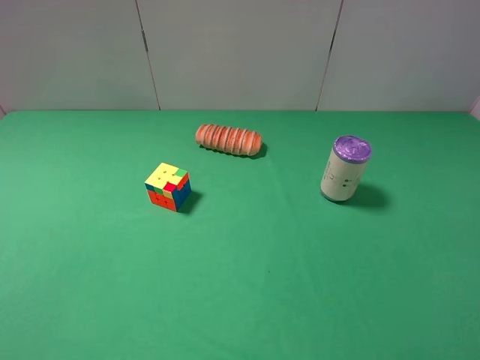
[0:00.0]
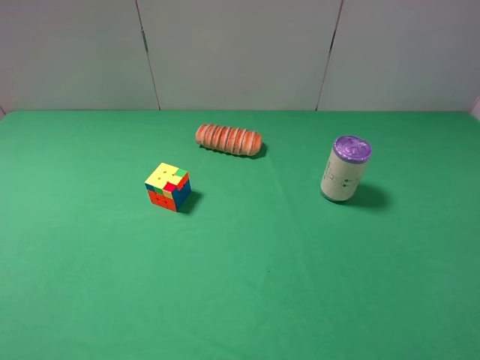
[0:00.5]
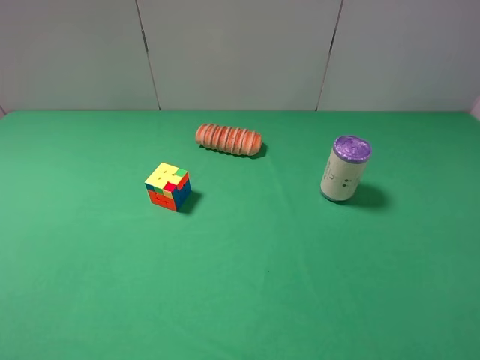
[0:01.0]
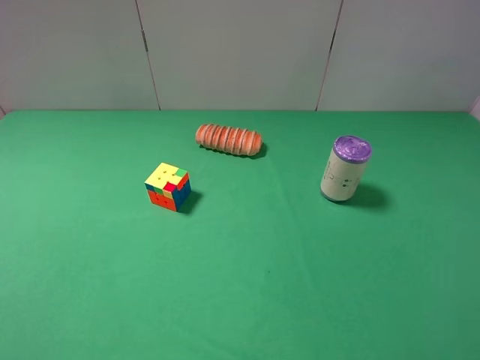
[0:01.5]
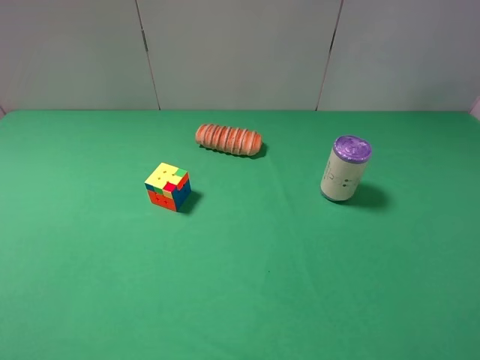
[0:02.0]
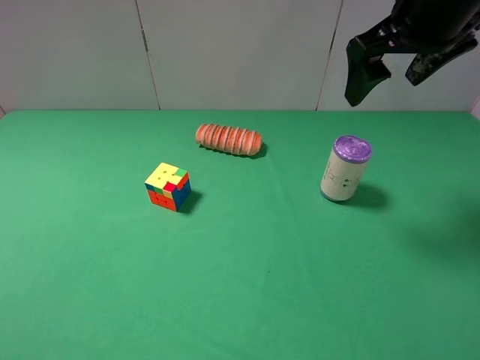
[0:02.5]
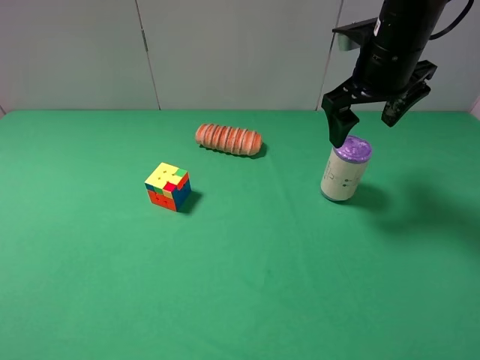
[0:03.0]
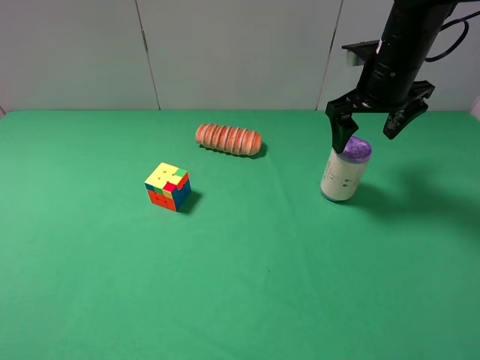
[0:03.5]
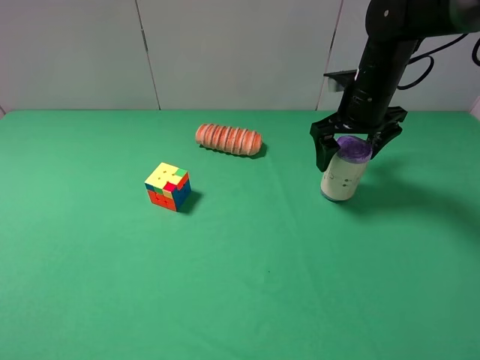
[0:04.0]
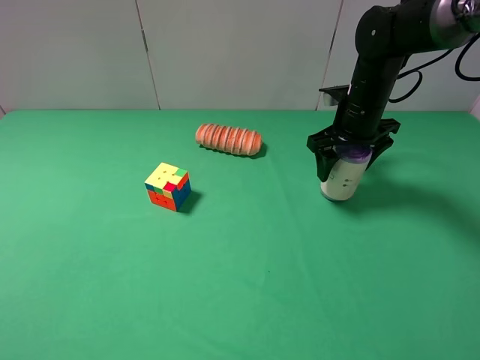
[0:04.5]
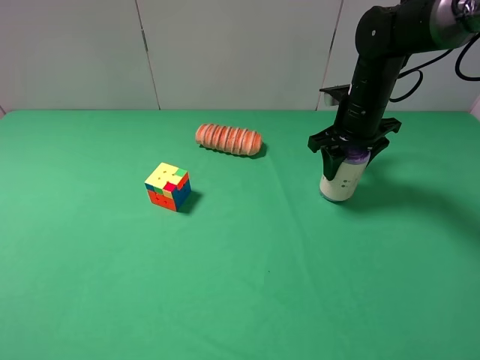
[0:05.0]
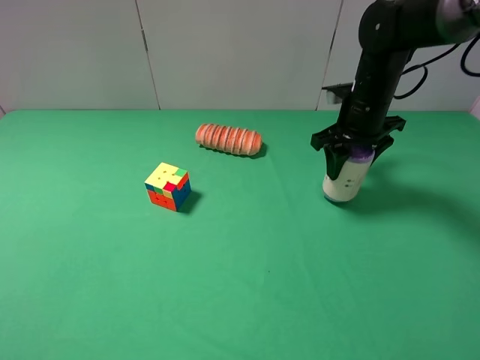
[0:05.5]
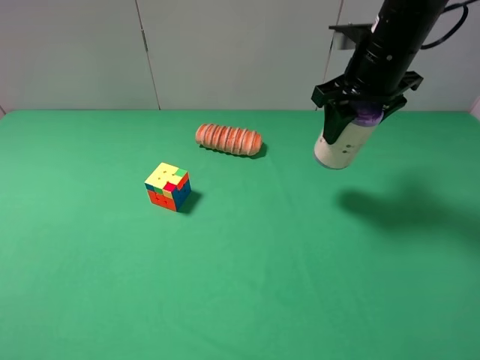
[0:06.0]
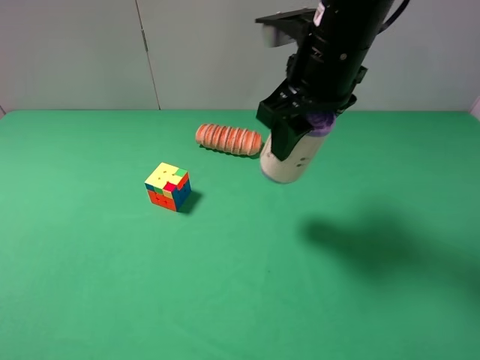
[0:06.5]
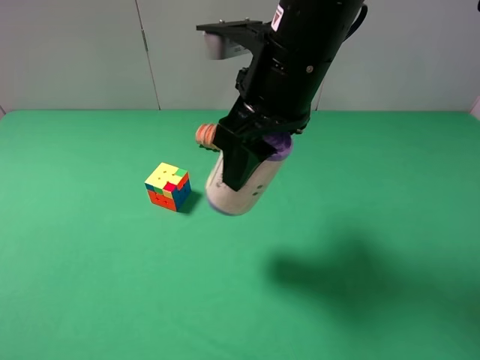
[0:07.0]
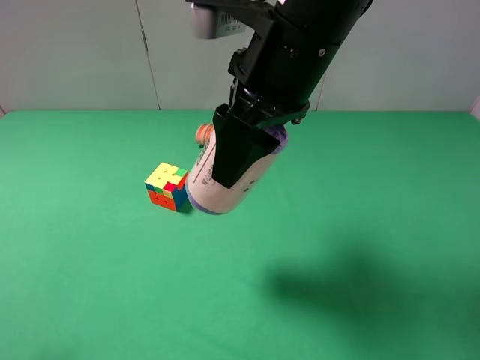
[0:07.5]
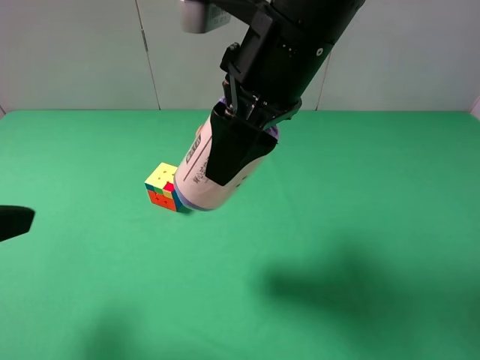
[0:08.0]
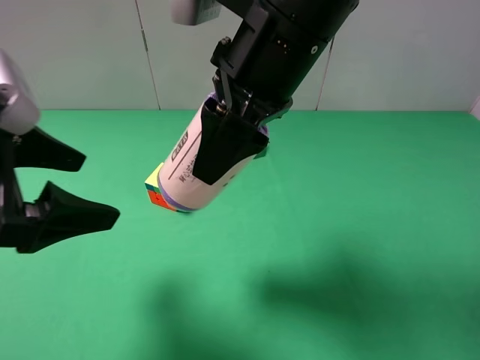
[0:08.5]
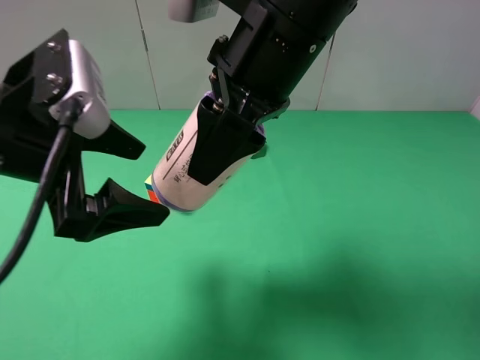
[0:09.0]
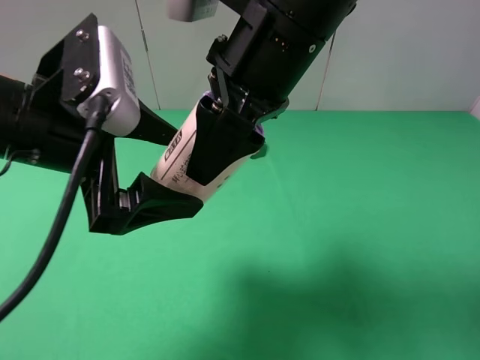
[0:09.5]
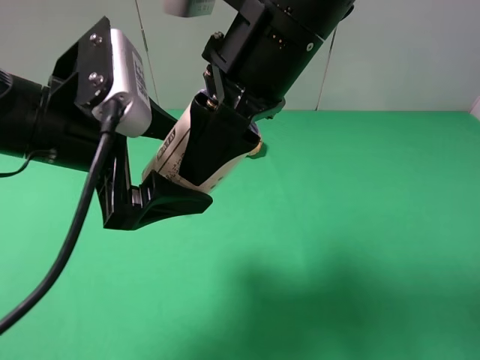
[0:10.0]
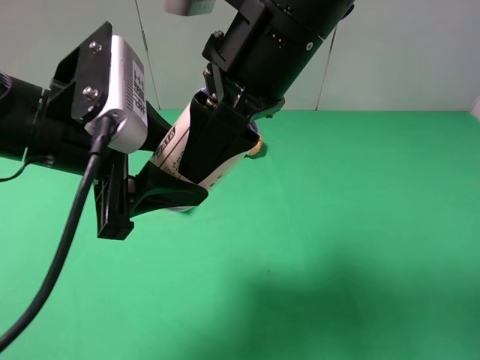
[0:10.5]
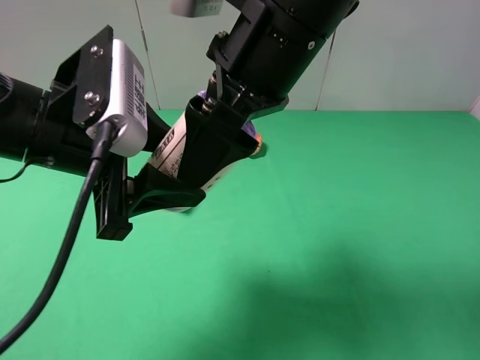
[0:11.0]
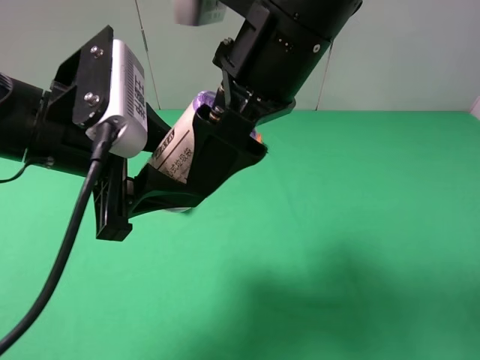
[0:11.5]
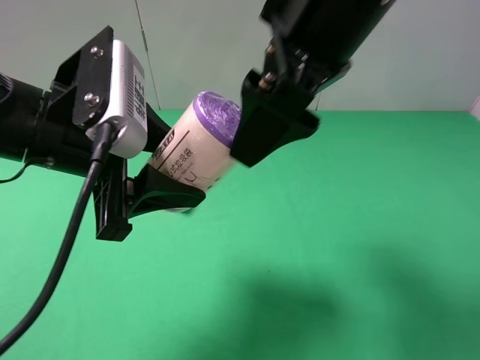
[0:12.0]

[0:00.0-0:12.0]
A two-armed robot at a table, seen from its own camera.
Task of the whole recording: use the right gripper to pick up the item and transfer it from the right gripper to the left gripper.
Step, 0:00.0 to 0:04.5: Use the right gripper to grab the purple garbage bag on the right side of the table.
Step, 0:05.0 to 0:11.0: Pass the purple garbage bag to the left gripper.
0:02.0 to 0:04.0: The right gripper goes some 30 cm downward and forward.
0:04.0 to 0:06.0: The right gripper shifts some 10 cm upward, and closes.
0:06.0 to 0:08.0: The right gripper shifts approximately 15 cm to the left and backward, while the left gripper heads forward, covering approximately 10 cm.
0:08.0 to 0:10.0: The left gripper is displaced to the right and forward by approximately 15 cm.
0:10.0 to 0:12.0: The left gripper closes up. The right gripper shifts by approximately 5 cm, and opens up.

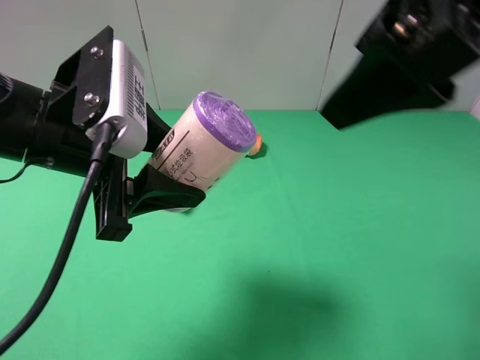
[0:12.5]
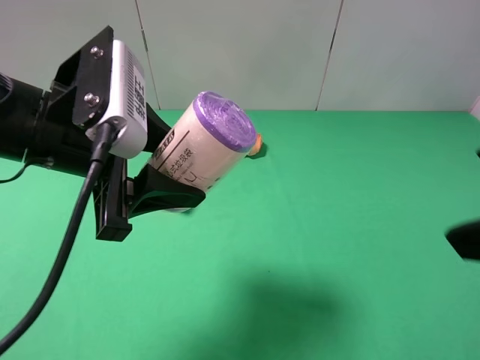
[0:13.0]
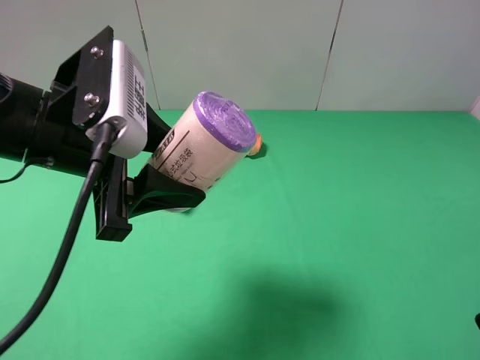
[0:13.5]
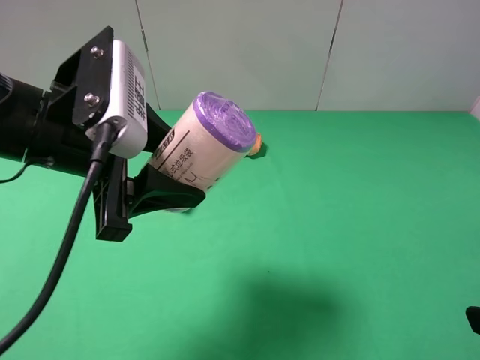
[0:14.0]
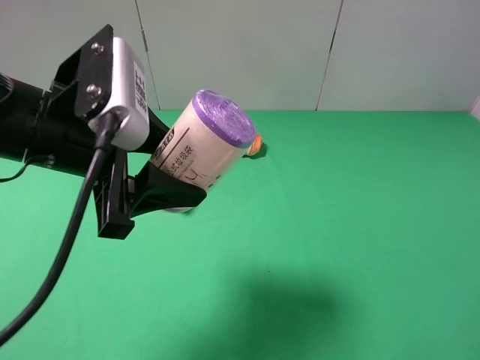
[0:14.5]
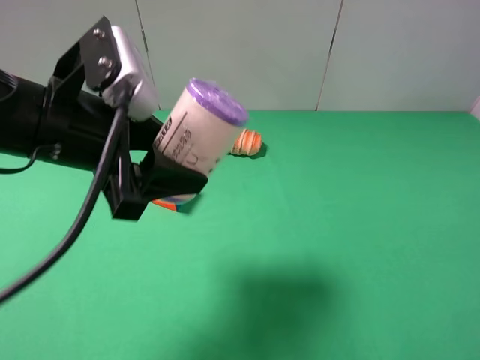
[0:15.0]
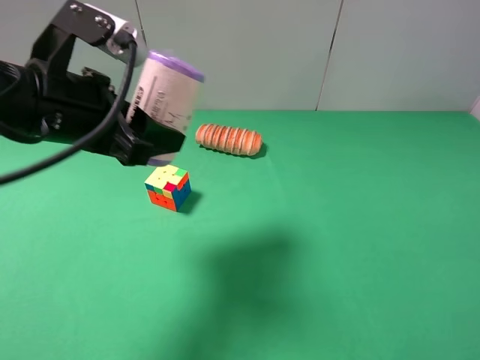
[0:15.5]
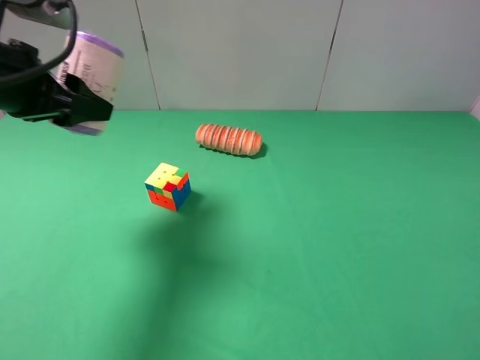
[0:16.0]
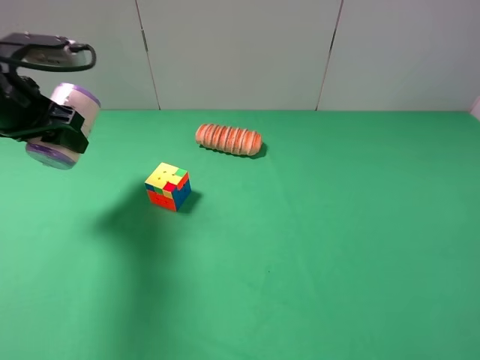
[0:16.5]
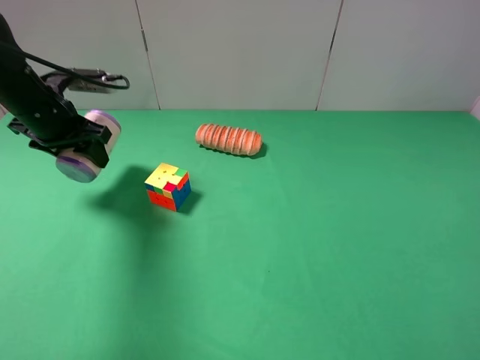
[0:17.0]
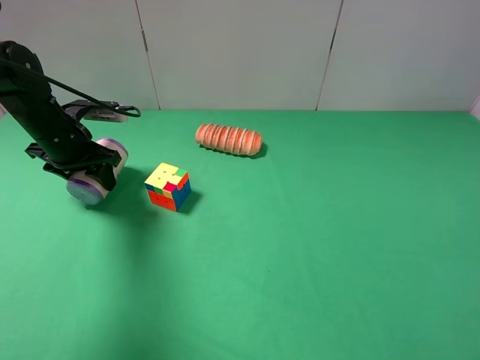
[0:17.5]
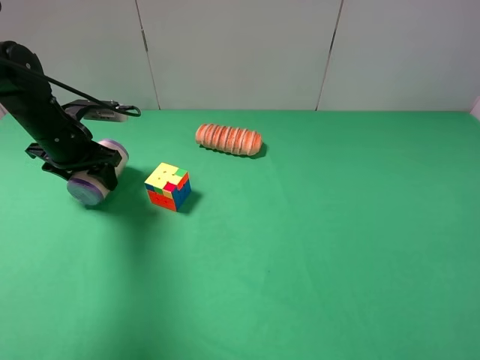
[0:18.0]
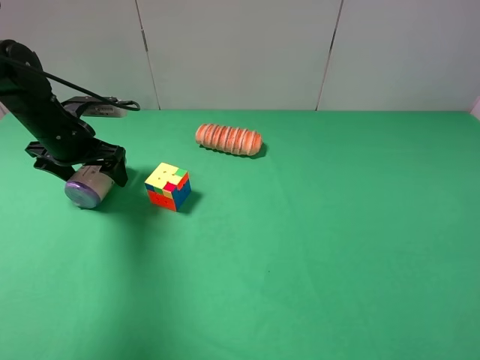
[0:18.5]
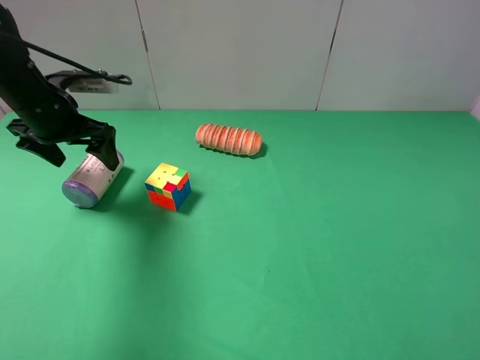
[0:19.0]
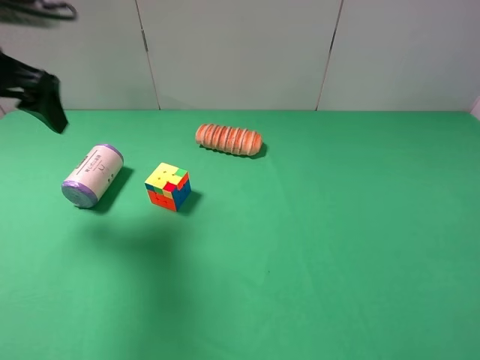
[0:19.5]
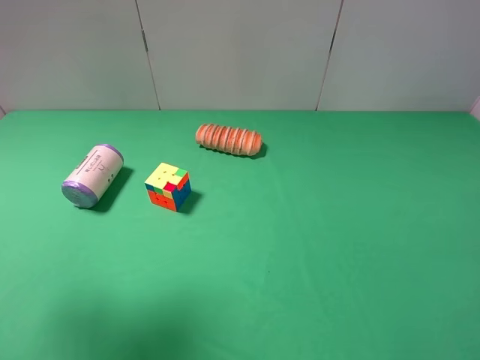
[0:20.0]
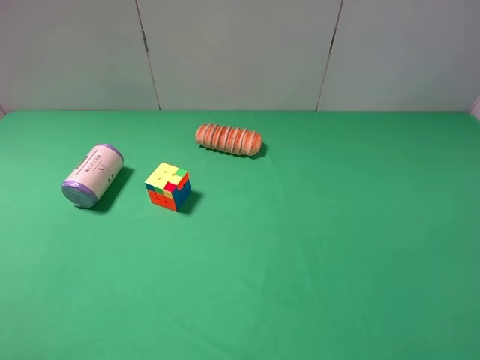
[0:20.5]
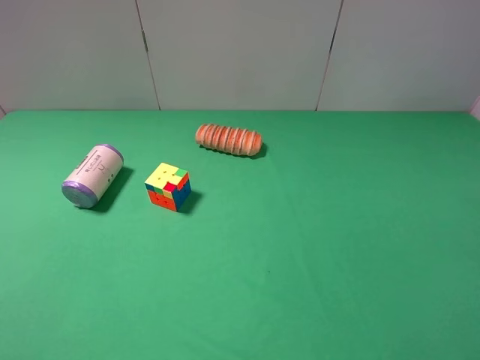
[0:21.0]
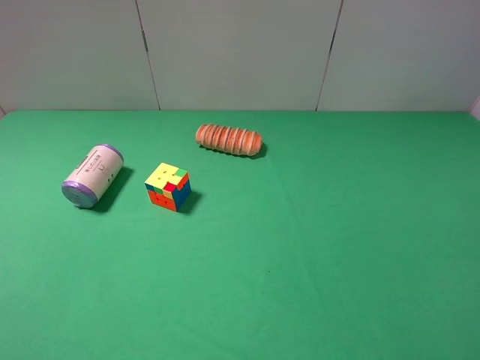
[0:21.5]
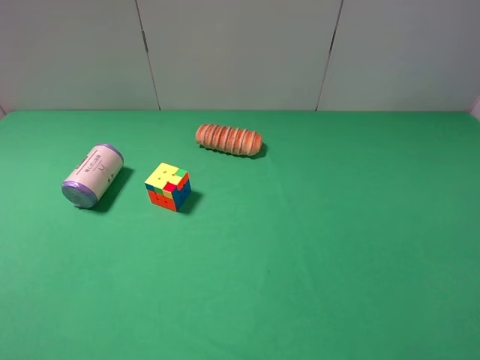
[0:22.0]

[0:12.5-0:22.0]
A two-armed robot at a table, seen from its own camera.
Task of the whole recording: use the right gripper to pick up the item and transfer it from the right gripper to the left gripper.
Step, 0:12.5 to 0:18.0: The left gripper places purple garbage bag on the left side of the table.
0:12.5 to 0:14.5: The right gripper moves to the right, backward and downward, about 25 cm.
0:14.5 to 0:16.5: The left gripper moves to the left and forward, some 15 cm.
0:16.5 to 0:18.0: The left gripper shifts about 10 cm downward and forward, and opens up.
0:18.0 to 0:20.0: The left gripper shifts about 30 cm upward and backward, and opens its fingers.
0:20.0 to 0:22.0: The left gripper goes about 15 cm backward and downward.
